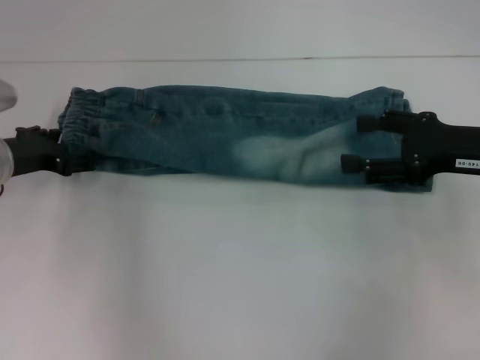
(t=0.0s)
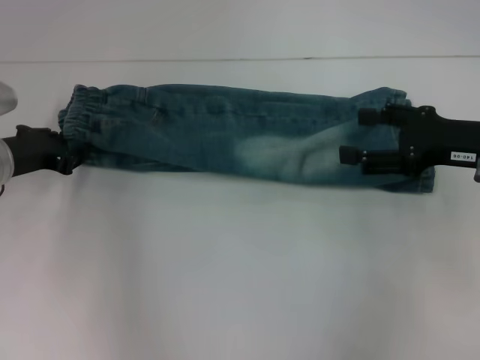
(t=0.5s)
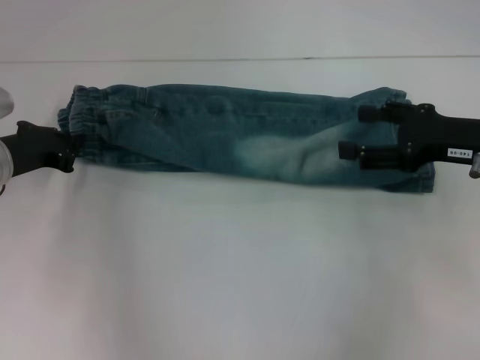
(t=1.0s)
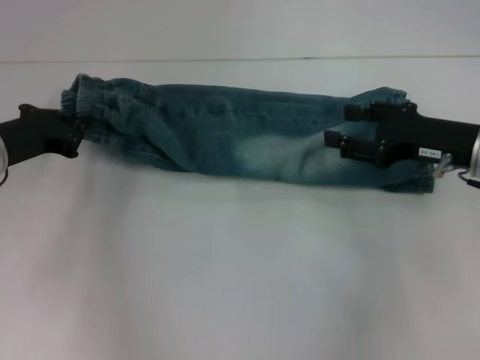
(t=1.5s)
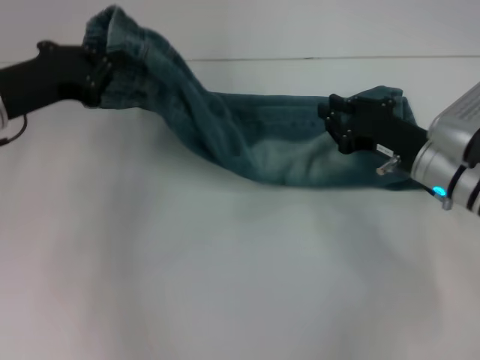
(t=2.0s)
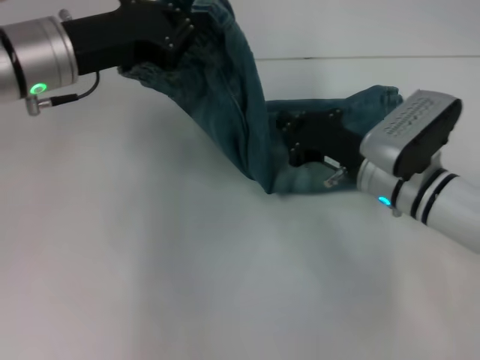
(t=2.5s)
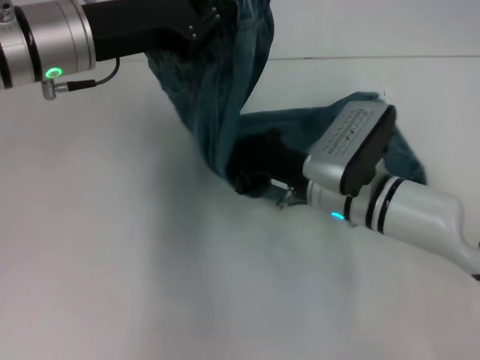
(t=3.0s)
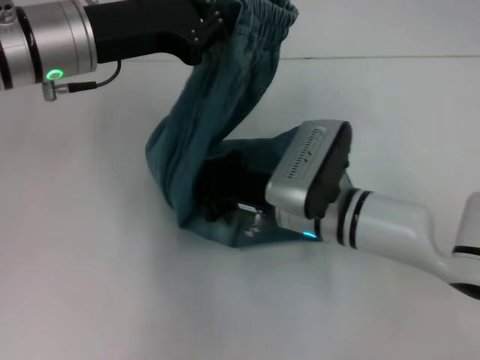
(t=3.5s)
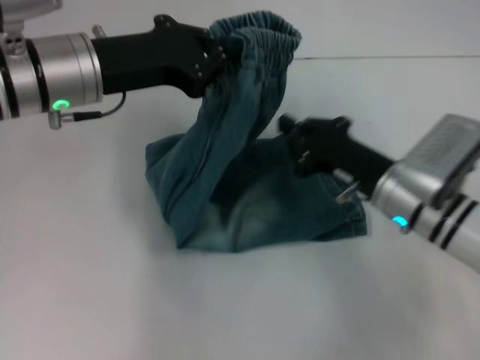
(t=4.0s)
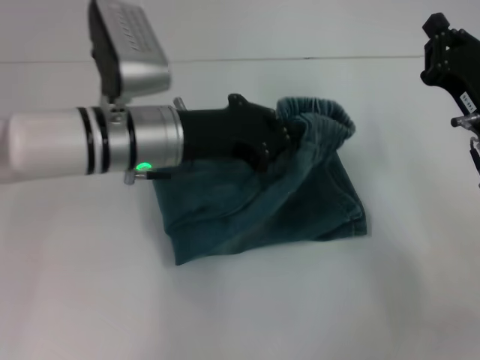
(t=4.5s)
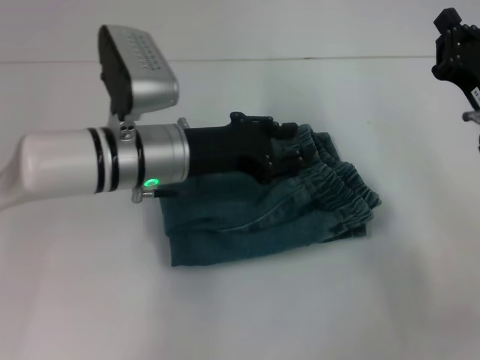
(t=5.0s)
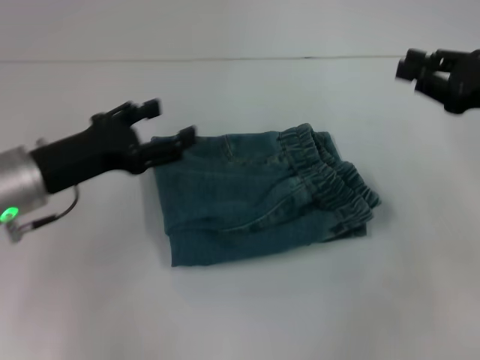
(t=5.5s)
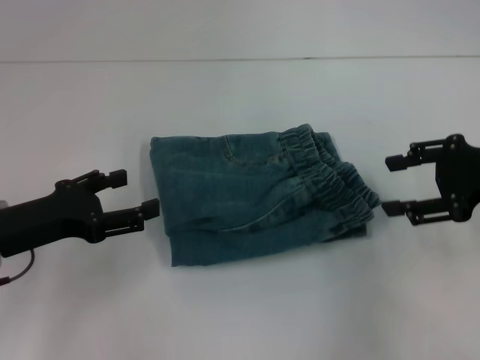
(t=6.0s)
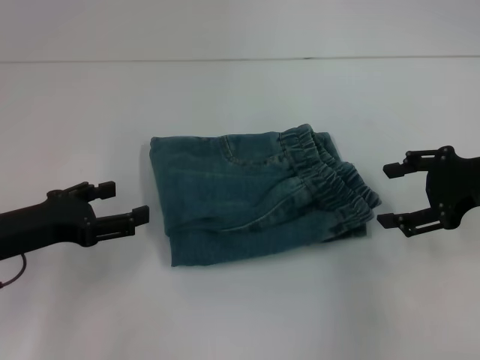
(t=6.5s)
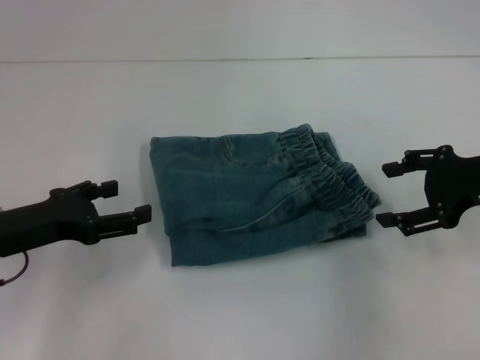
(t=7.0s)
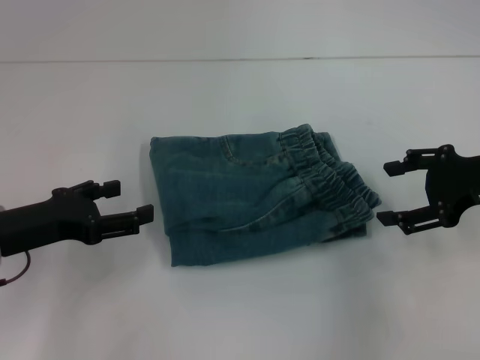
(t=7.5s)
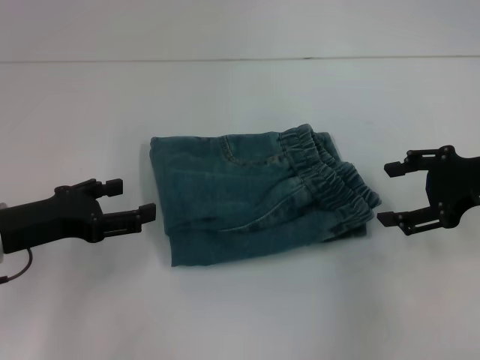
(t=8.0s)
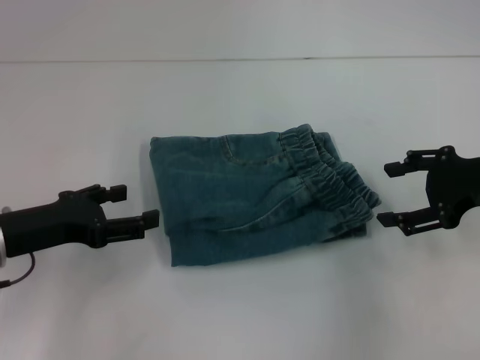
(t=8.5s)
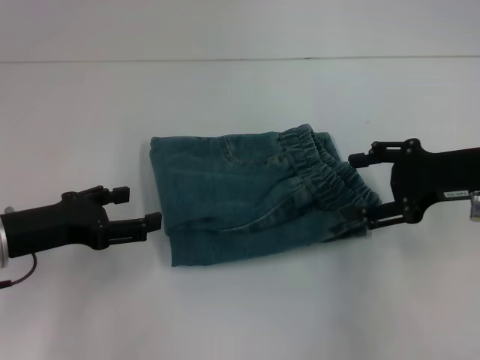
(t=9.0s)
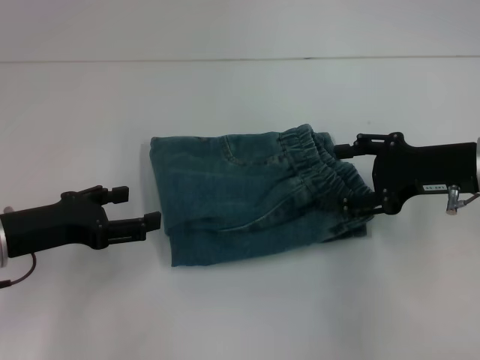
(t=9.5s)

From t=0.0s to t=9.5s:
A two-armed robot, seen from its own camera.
Step, from t=0.5s to t=3.5s: Press the middle of the pants with your right hand.
Step, from t=4.0s to t=5.5s: Fold to the right with your left hand.
From t=0.0s to t=2.0s: The right gripper shifts roughly 10 cm downward and to the left, and closes its fingers, while the left gripper is displaced upward by about 5 cm, and closes up.
From t=2.0s to t=4.0s: The right gripper travels to the left and back again, some 15 cm each way, while the left gripper heads to the right, covering roughly 10 cm.
From t=4.0s to t=5.5s: The right gripper travels to the right and upward by roughly 15 cm, while the left gripper shifts roughly 10 cm downward, backward and to the left, and opens.
From t=5.5s to t=7.5s: The right gripper opens its fingers. Meanwhile the left gripper changes place by approximately 5 cm.
From t=7.5s to t=9.5s: The grippers stay close to where they were, moving slightly.
